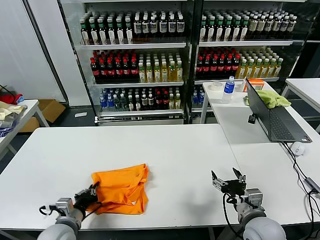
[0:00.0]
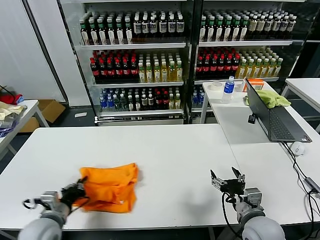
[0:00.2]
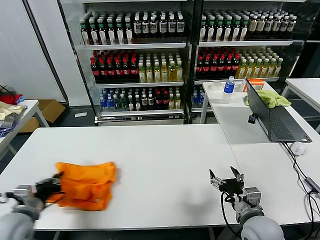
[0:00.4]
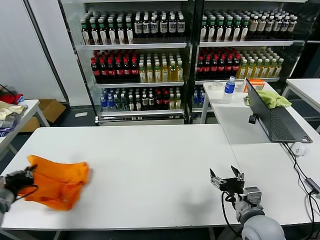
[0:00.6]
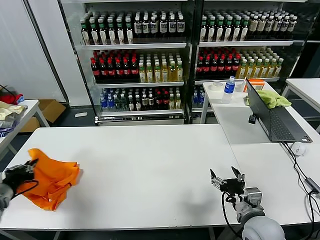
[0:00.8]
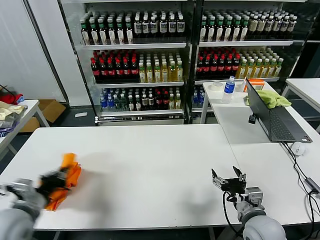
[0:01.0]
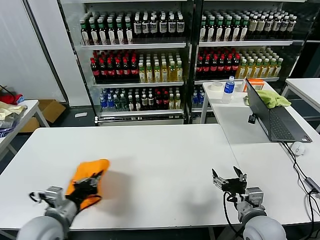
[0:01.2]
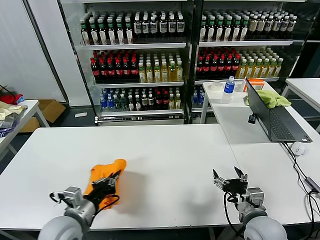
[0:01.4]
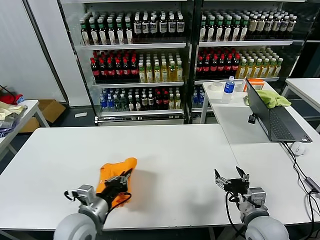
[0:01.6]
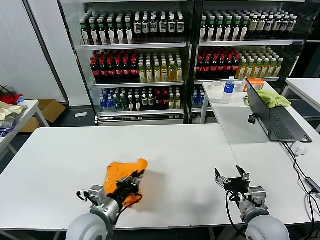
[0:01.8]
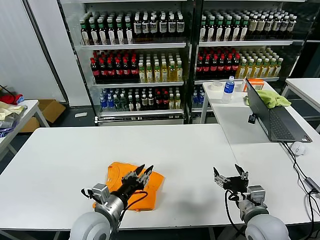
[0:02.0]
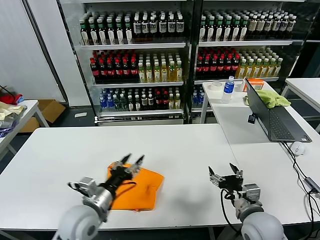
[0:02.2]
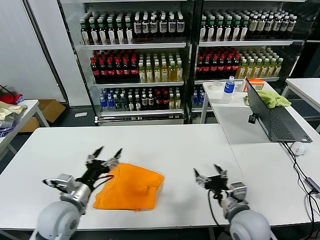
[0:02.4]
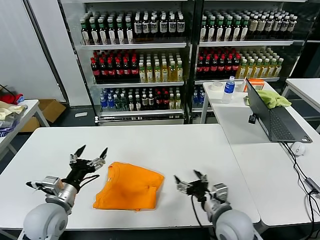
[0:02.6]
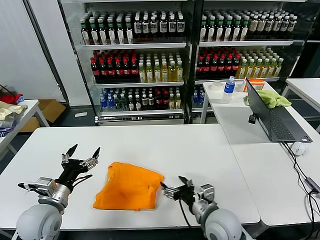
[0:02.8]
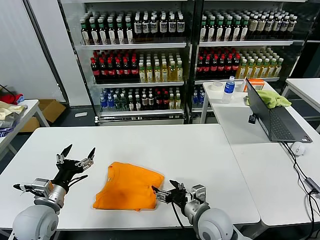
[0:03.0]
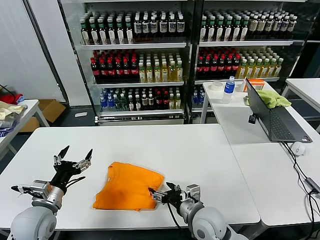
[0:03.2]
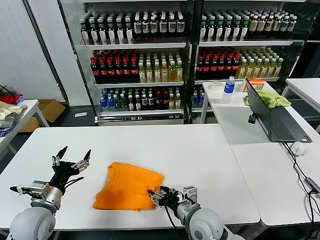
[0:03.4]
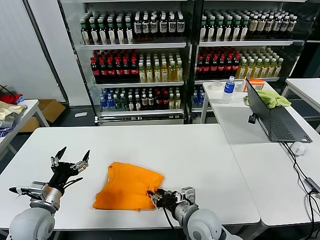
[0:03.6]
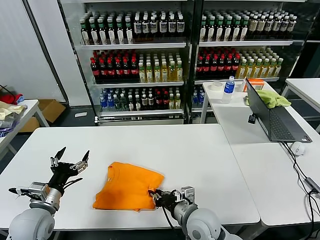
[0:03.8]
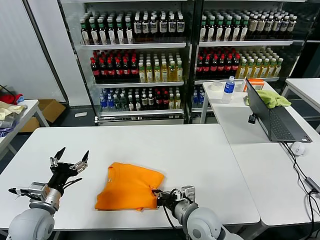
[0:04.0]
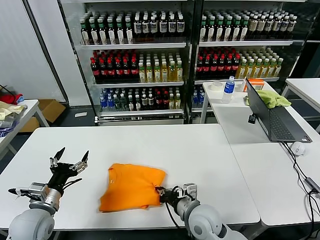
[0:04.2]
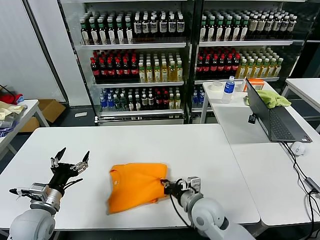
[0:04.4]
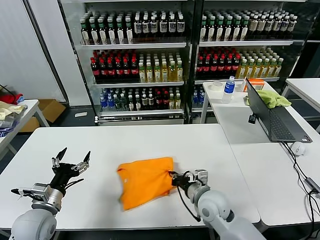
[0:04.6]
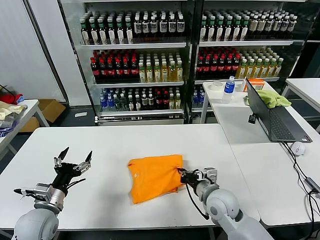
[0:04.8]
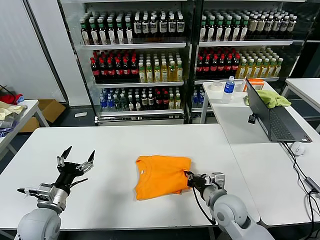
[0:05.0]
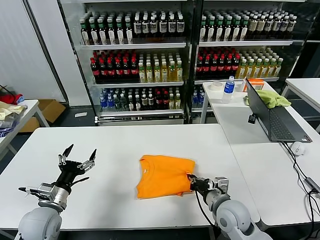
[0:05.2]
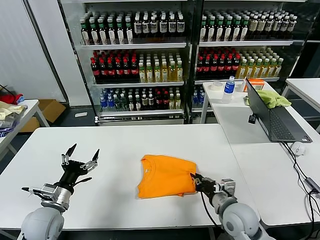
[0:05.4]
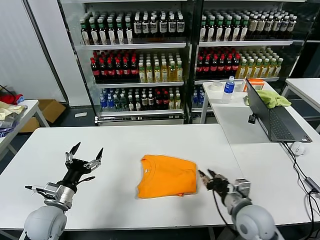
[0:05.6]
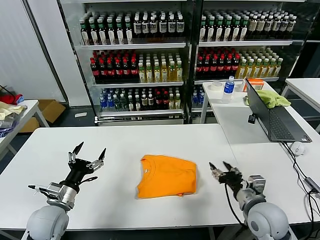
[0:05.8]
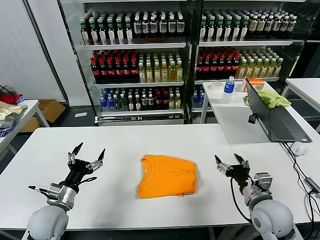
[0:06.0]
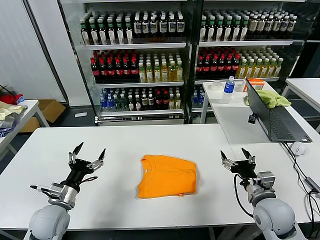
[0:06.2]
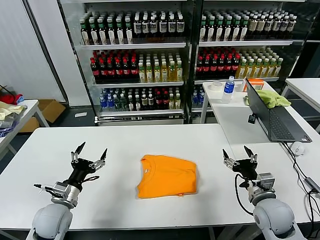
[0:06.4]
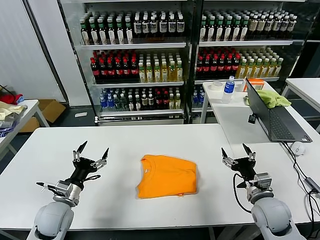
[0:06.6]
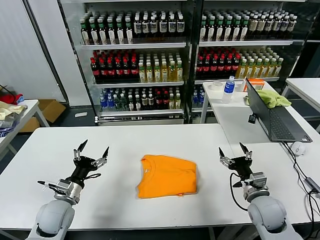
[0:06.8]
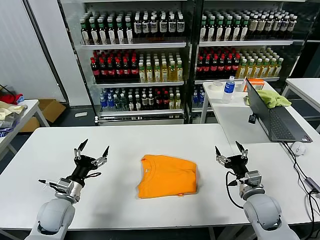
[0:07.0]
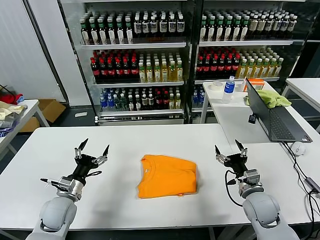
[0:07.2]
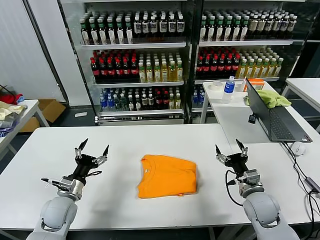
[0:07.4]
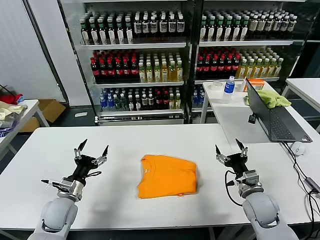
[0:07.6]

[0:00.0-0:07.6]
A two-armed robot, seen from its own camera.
Task of the whole recording: fold and organize the clothes.
Step, 0:00.0 to 0:02.0: Flip the folded clothes over with left gripper.
Step, 0:02.2 to 0:05.4: Drag the clothes to the center of the table.
0:00.0 to 0:01.6: The left gripper shifts some 10 cm upward, and moves about 15 cm to the left and comes back.
0:01.6 to 0:03.0: The grippers both shift to the left by roughly 10 cm. The left gripper opens up.
0:03.0 to 0:04.6: The right gripper heads forward, covering about 5 cm, and closes its fingers.
0:04.6 to 0:06.0: The right gripper shifts roughly 15 cm to the right, and opens up.
0:06.0 to 0:07.6: The right gripper moves downward and forward, roughly 5 cm. The left gripper ends up some 5 cm from where it was.
